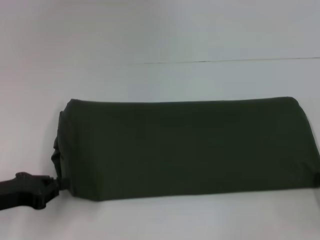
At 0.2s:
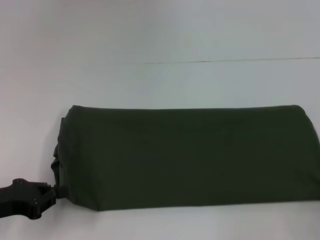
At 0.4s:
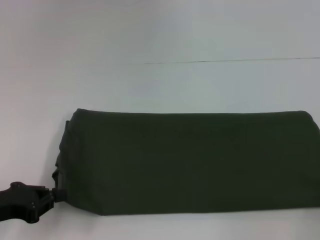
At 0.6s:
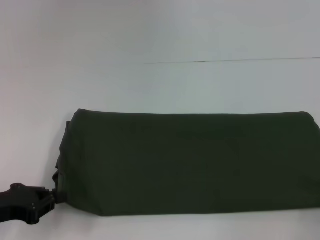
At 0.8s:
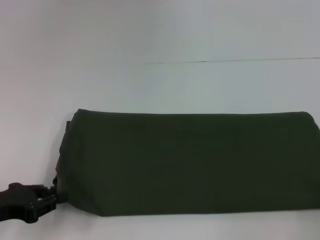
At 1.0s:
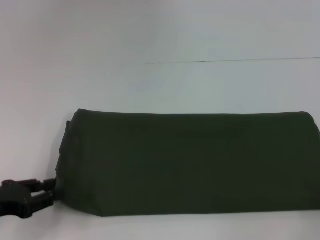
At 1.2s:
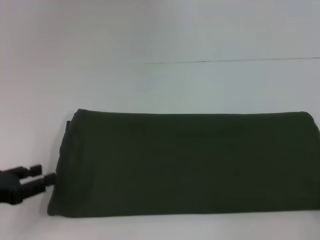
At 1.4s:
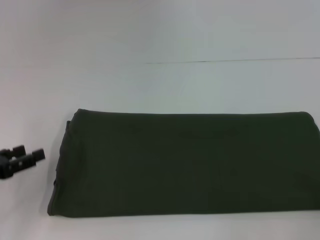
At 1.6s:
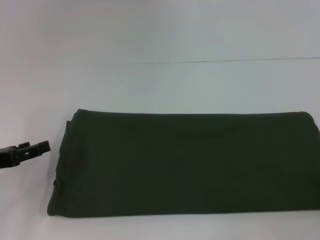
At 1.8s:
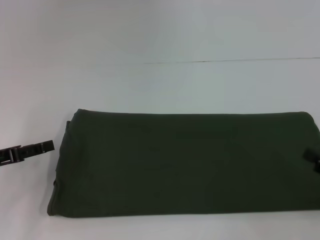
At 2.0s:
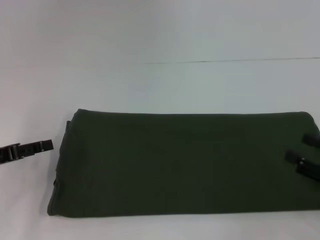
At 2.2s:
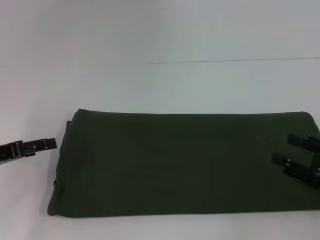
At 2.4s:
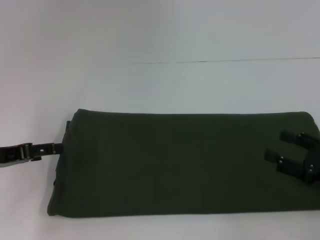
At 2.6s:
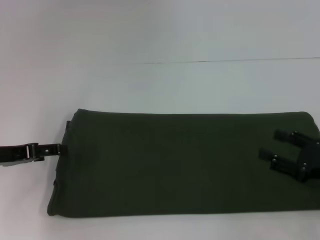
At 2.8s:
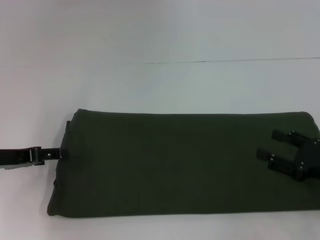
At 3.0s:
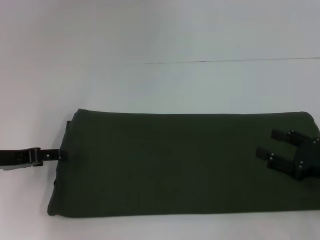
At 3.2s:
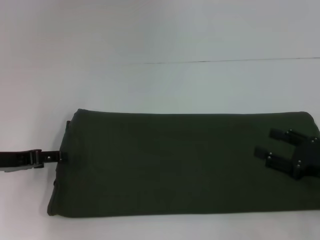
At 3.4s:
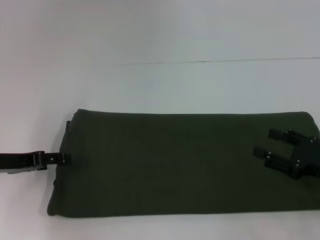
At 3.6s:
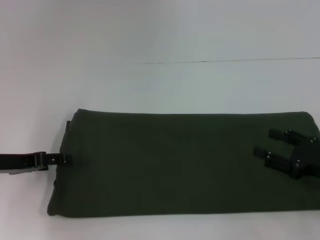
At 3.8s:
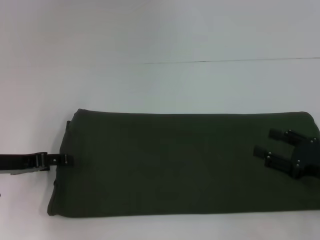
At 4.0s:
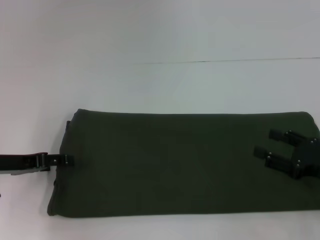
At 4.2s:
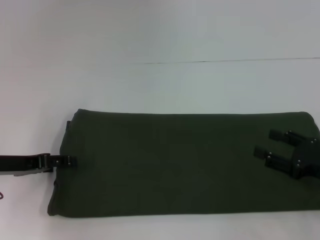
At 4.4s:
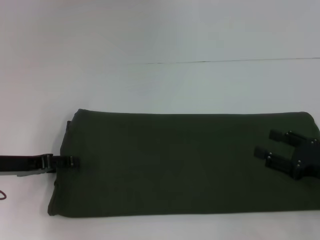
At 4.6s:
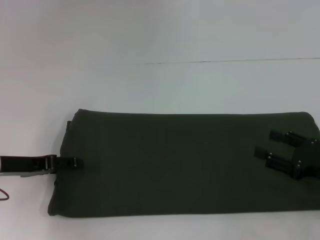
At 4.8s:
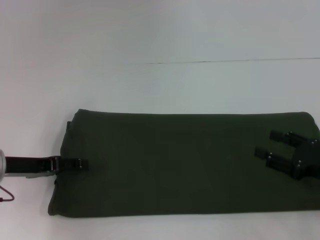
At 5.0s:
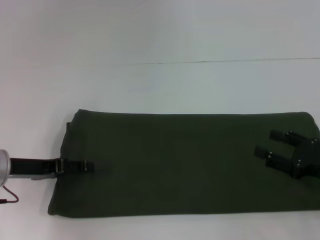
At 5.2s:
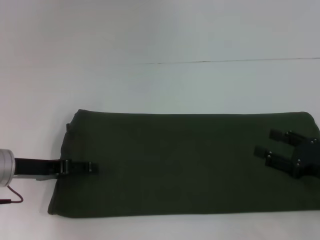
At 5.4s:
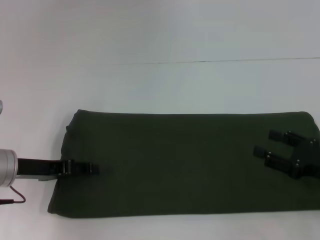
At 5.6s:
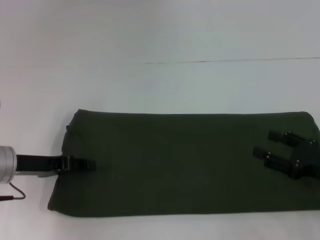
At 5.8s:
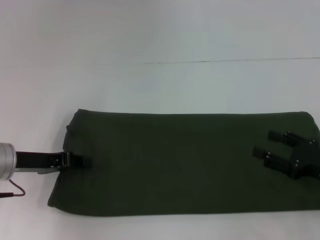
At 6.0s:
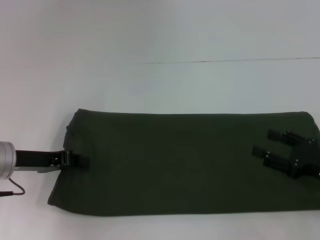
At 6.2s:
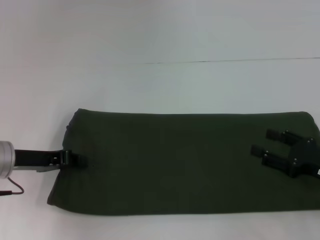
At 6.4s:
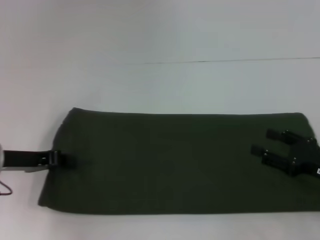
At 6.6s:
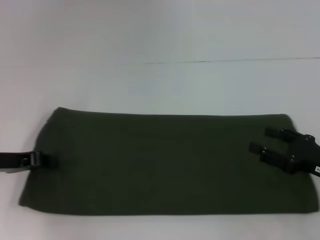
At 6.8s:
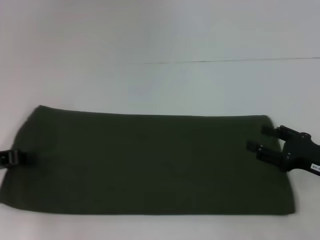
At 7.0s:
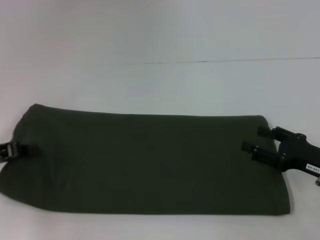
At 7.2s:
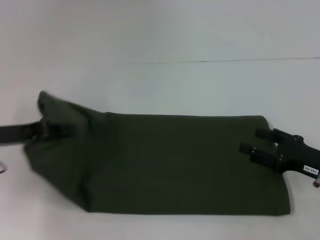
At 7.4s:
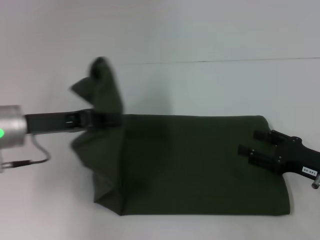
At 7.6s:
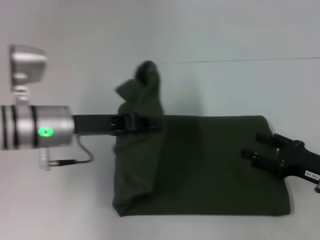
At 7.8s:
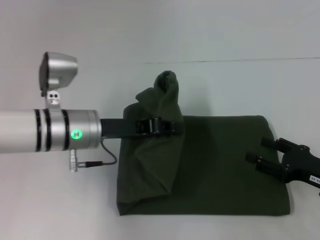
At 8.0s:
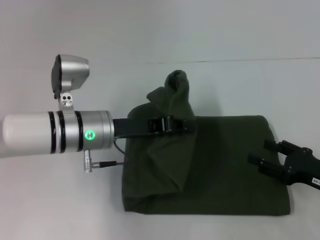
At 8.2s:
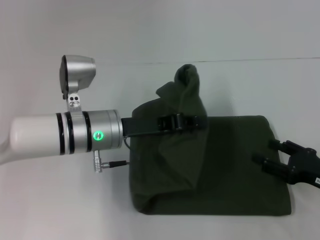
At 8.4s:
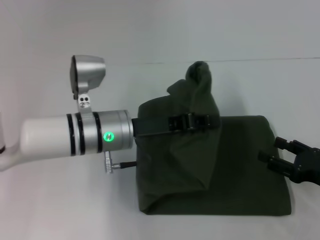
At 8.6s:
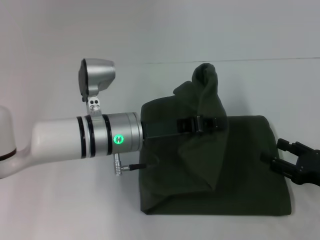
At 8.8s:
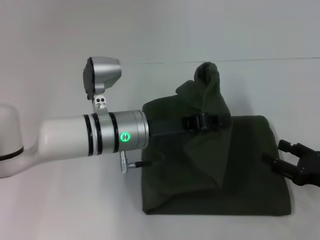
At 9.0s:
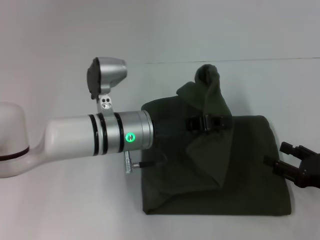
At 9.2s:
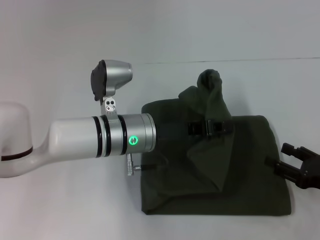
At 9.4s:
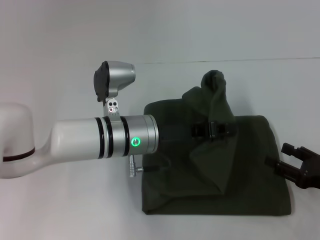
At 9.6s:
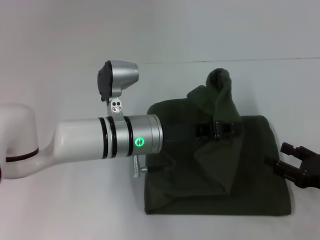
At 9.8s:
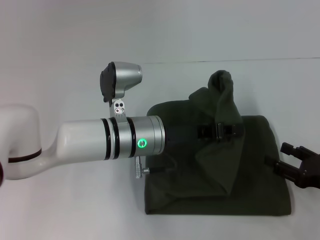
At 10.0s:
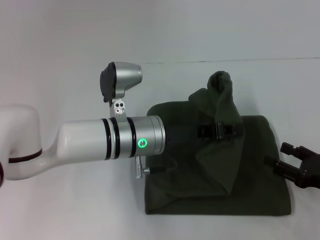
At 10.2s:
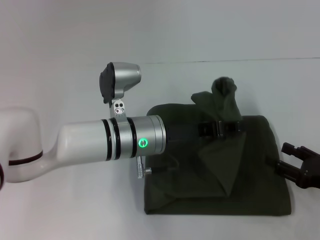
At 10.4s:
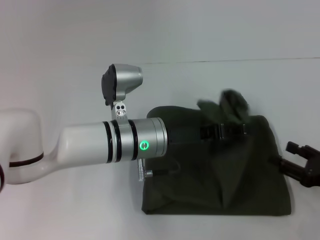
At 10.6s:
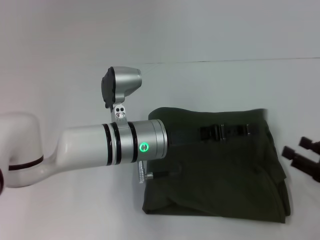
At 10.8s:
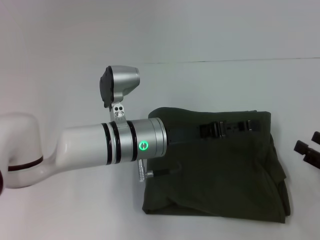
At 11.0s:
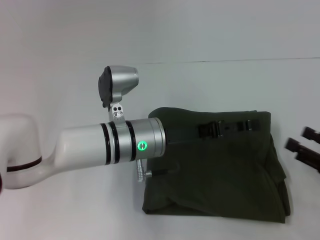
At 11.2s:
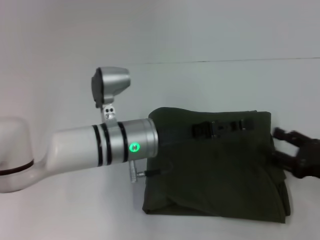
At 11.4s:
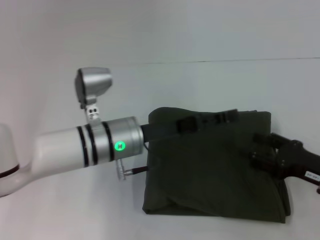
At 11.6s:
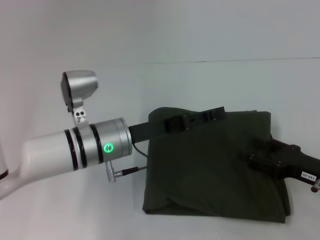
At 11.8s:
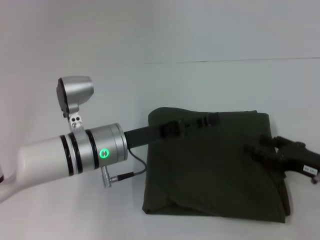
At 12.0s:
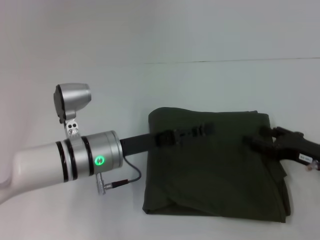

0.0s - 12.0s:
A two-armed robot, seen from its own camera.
Step, 0.0s - 10.6s: Fold the clothes with your left hand.
0.0s - 1.6s: The left gripper opens its fingers; the right gripper opens.
1.6s - 3.0s: The right gripper travels forward and to the left by some 10 cm. Meanwhile the left gripper changes place by roughly 5 cm.
3.0s - 4.4s: The grippers make only small movements.
4.4s - 6.0s: The left gripper closes.
6.0s - 7.6s: The left gripper heads to the right, covering roughly 10 cm.
7.6s - 9.0s: The left gripper moves to the right, roughly 10 cm.
9.0s - 10.4s: The grippers move only a little.
10.4s - 12.0s: The left gripper goes approximately 5 cm to the left, and opens its fingers; the right gripper is displaced forward by approximately 5 cm.

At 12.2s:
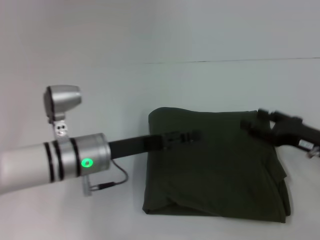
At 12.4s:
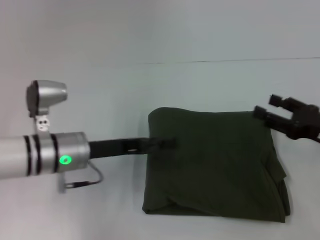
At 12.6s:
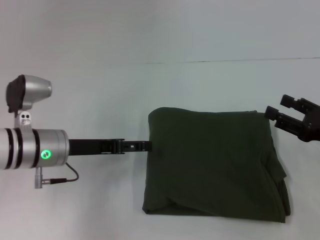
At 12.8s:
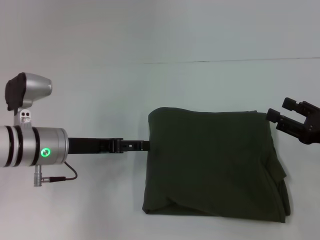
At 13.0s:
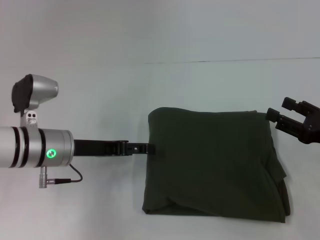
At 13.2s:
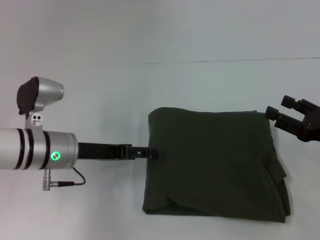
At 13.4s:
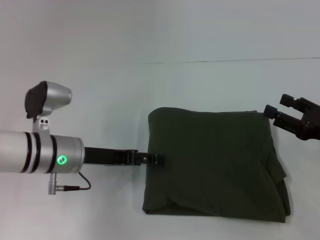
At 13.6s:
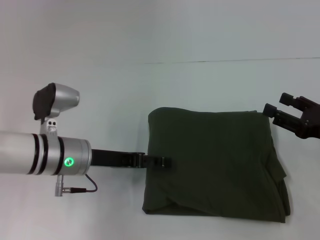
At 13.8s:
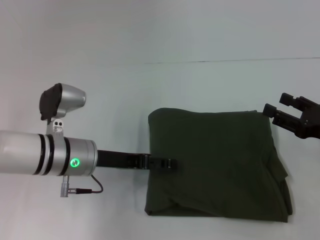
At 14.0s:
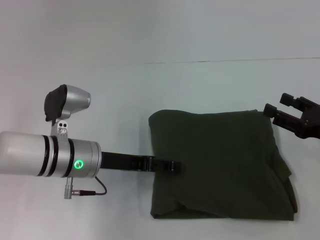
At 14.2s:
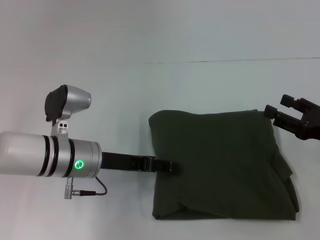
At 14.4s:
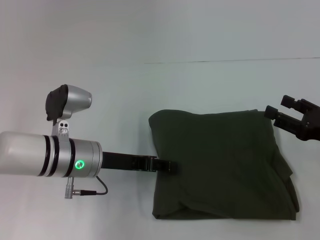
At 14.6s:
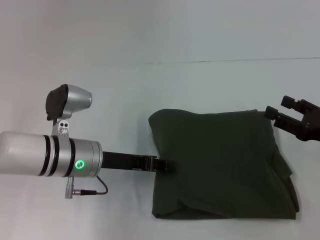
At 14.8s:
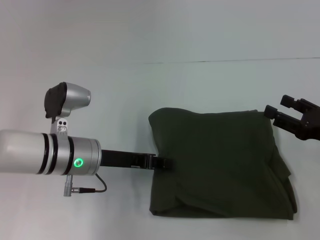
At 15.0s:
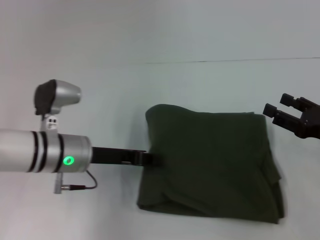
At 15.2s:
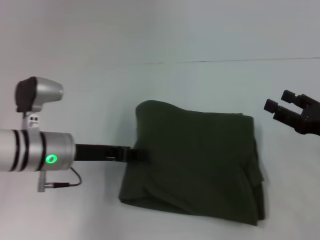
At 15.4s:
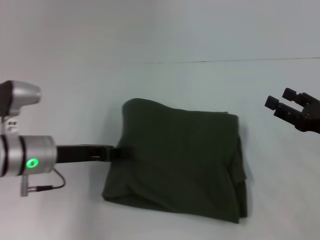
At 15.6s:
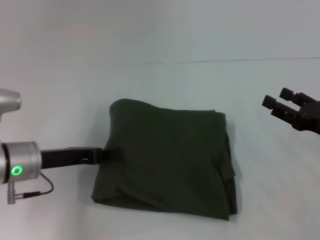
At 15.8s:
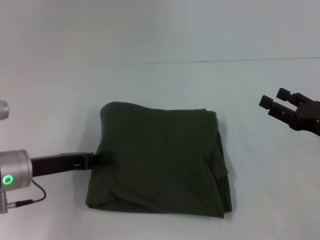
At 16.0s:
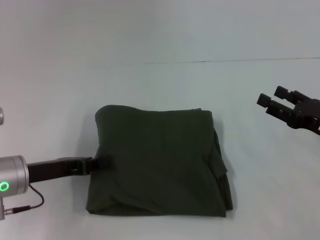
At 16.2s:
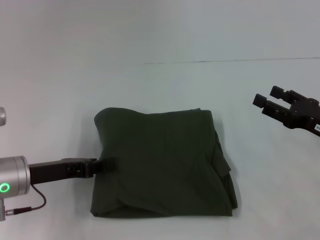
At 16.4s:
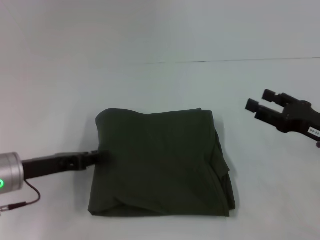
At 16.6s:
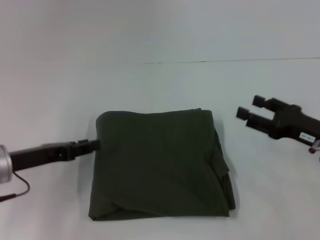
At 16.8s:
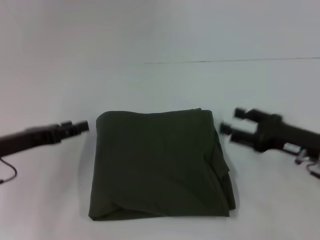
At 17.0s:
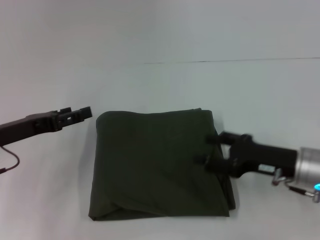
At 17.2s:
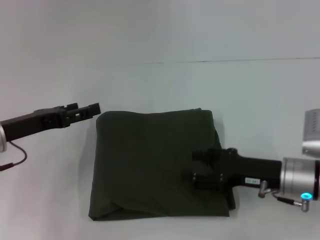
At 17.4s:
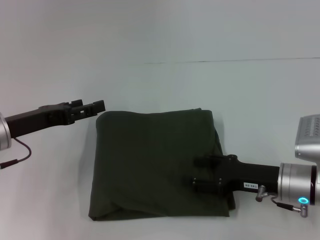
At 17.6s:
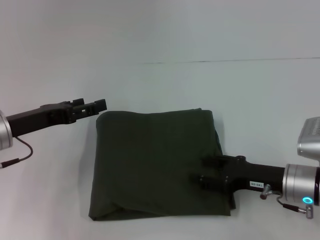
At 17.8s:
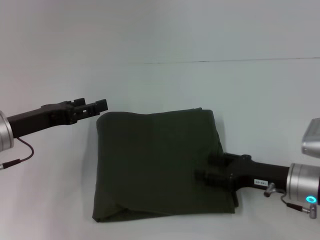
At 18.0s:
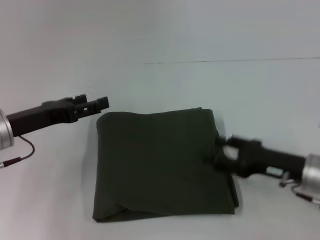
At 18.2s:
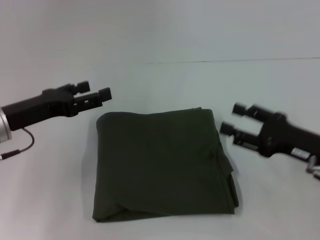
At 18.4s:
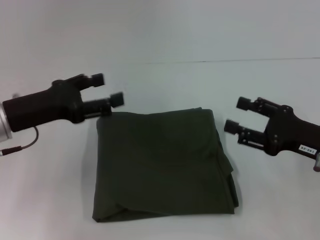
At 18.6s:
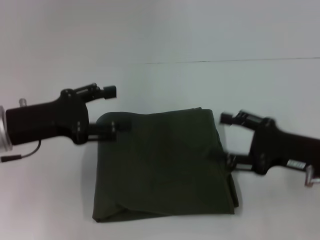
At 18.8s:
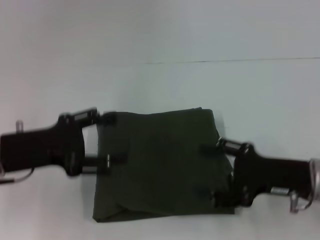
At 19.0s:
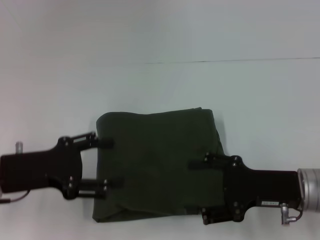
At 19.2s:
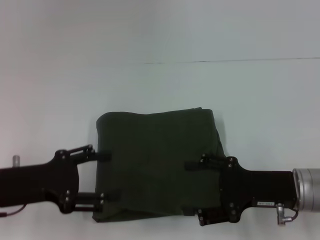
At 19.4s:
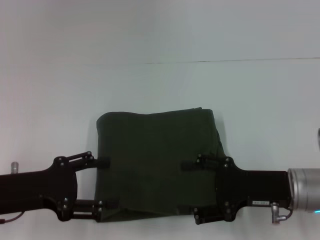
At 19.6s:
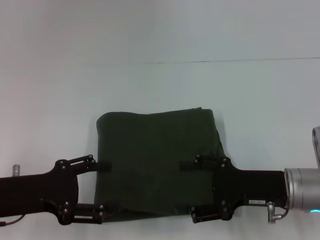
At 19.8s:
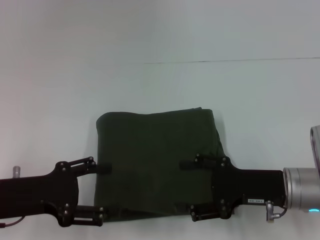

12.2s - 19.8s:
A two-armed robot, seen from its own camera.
13.8s - 15.2s: The left gripper closes its fingers.
15.2s - 16.8s: The left gripper moves to the left, some 10 cm, and opens up.
16.8s - 18.2s: The left gripper opens up.
18.2s - 19.8s: The left gripper heads backward, covering about 5 cm. Meanwhile the right gripper heads to the left, covering roughly 5 cm.

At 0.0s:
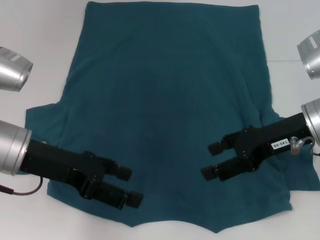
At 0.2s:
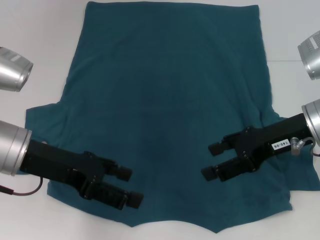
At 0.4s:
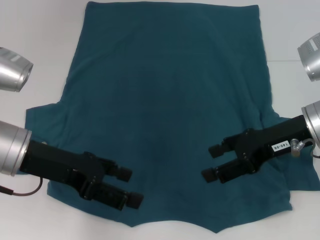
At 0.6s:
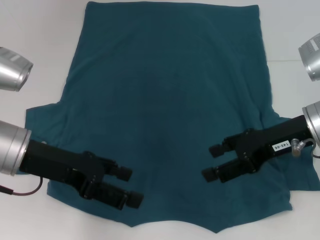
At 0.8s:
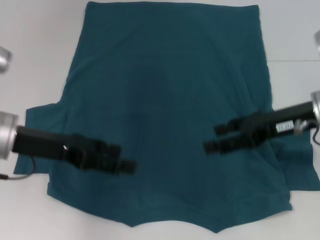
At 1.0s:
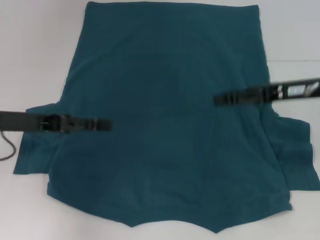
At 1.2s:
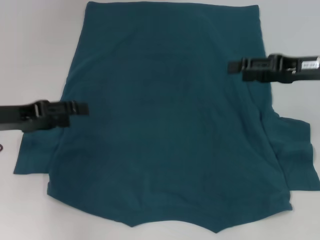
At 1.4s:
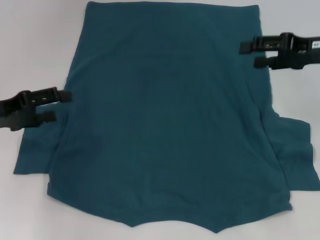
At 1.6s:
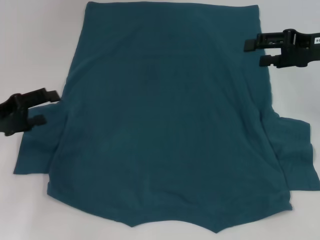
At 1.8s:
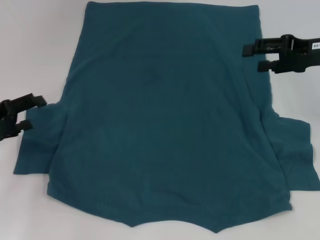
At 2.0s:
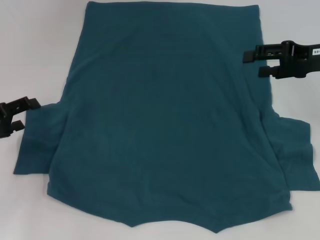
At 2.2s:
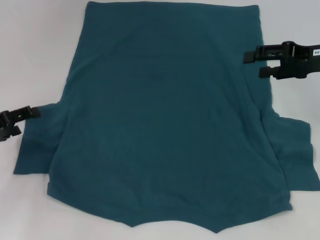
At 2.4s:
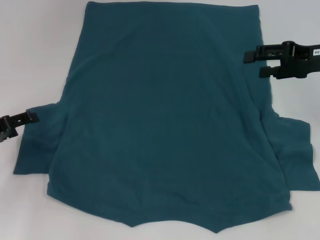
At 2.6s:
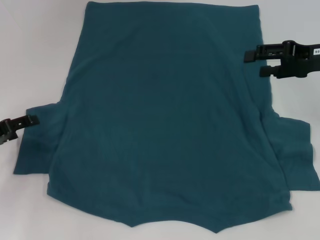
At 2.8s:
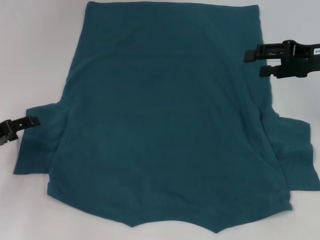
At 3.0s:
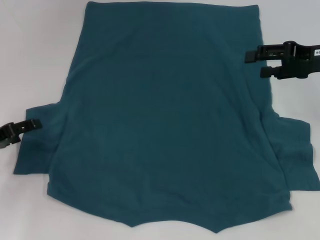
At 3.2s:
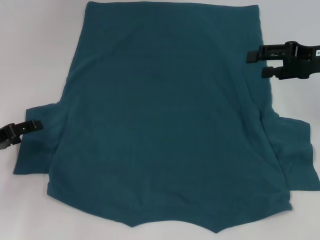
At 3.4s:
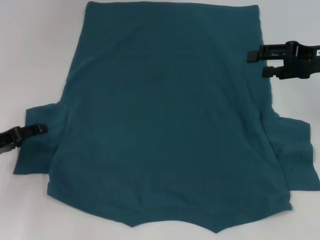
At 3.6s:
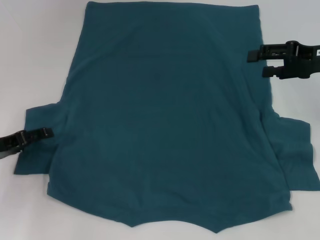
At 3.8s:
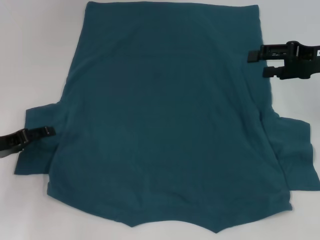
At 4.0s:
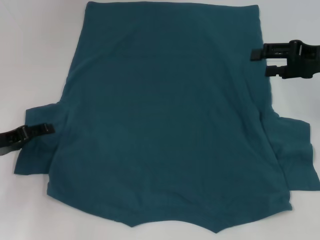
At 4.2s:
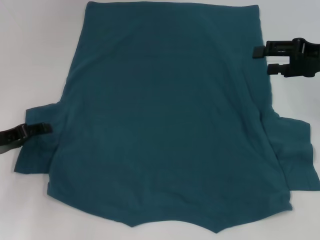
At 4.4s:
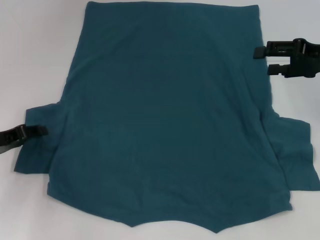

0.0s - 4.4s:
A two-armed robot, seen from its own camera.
0.0s - 1.4s: The left gripper is displaced to the left by some 10 cm. The right gripper is displaced to the right and forward by approximately 10 cm.
1.4s - 3.0s: The left gripper travels downward by roughly 5 cm.
3.0s - 4.4s: The grippers make only small movements.
